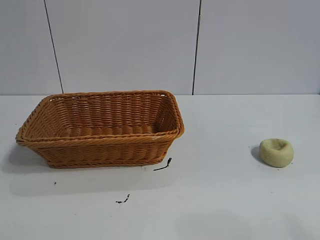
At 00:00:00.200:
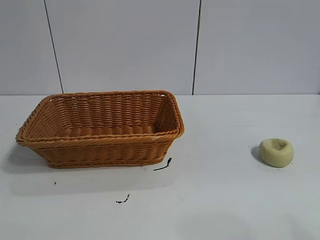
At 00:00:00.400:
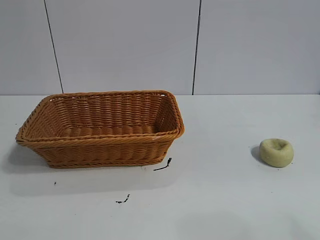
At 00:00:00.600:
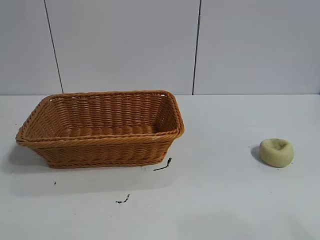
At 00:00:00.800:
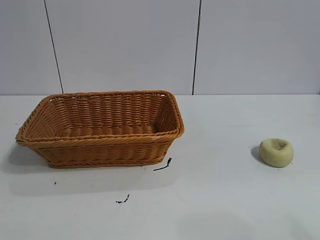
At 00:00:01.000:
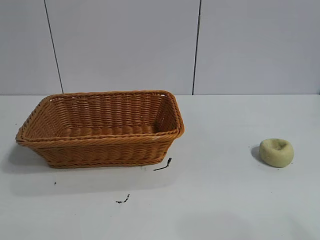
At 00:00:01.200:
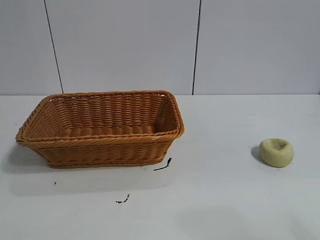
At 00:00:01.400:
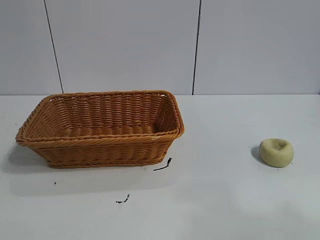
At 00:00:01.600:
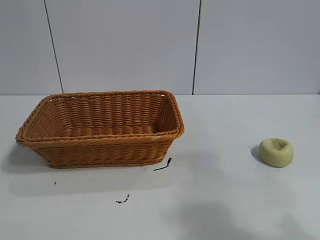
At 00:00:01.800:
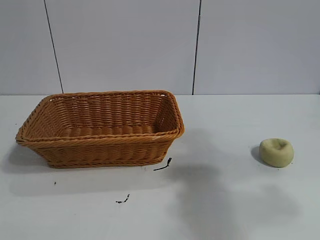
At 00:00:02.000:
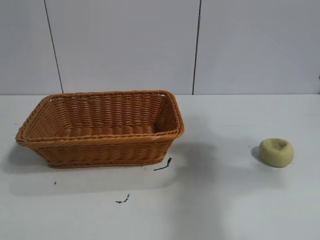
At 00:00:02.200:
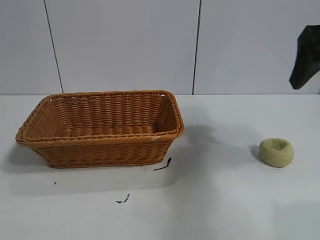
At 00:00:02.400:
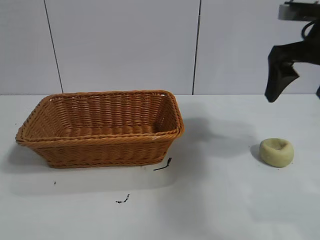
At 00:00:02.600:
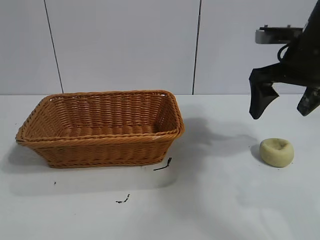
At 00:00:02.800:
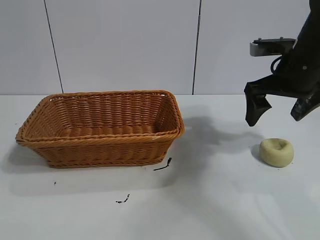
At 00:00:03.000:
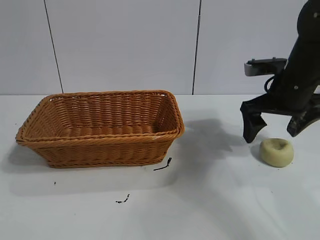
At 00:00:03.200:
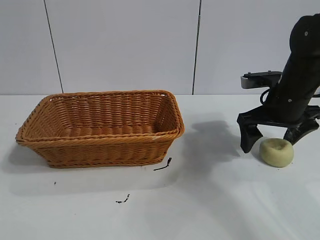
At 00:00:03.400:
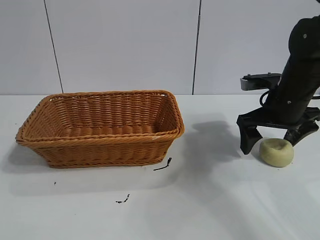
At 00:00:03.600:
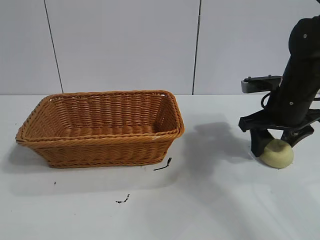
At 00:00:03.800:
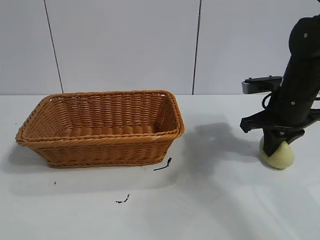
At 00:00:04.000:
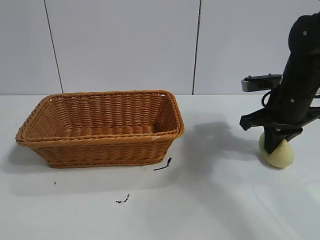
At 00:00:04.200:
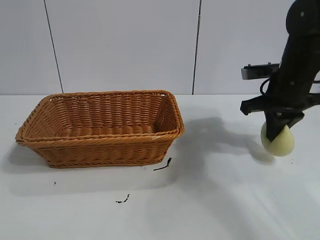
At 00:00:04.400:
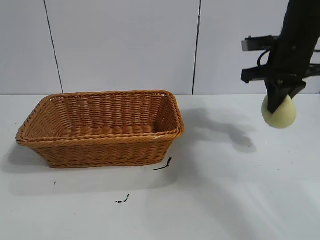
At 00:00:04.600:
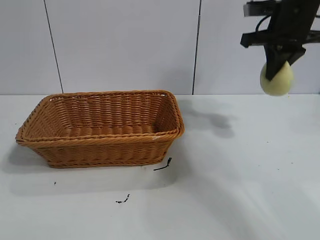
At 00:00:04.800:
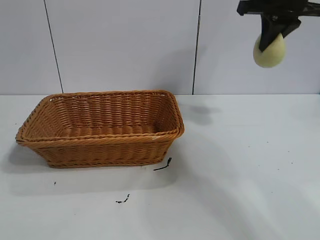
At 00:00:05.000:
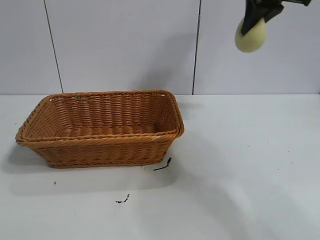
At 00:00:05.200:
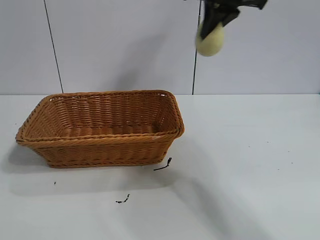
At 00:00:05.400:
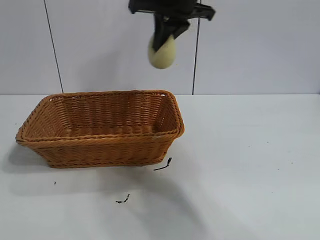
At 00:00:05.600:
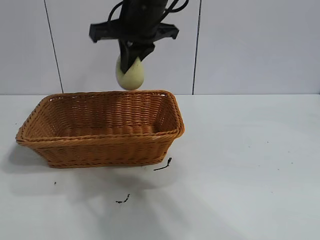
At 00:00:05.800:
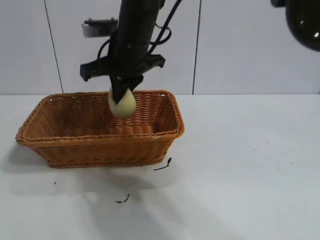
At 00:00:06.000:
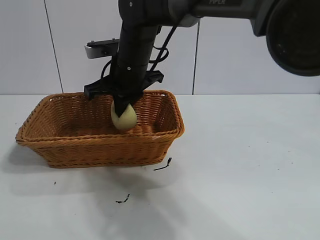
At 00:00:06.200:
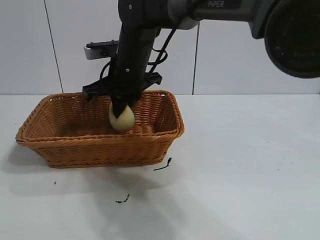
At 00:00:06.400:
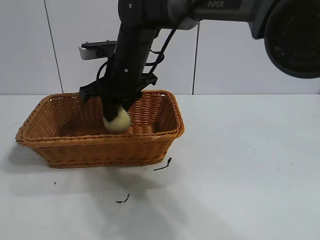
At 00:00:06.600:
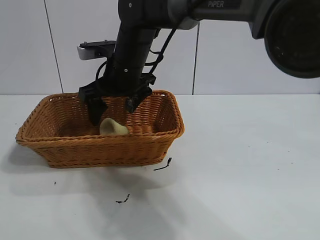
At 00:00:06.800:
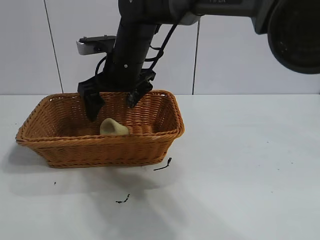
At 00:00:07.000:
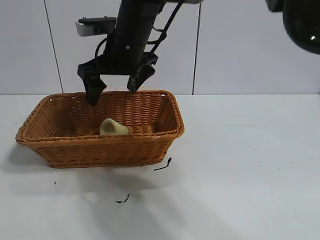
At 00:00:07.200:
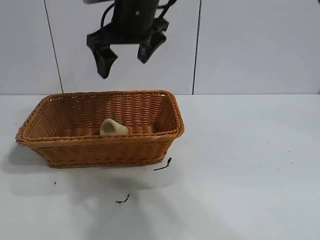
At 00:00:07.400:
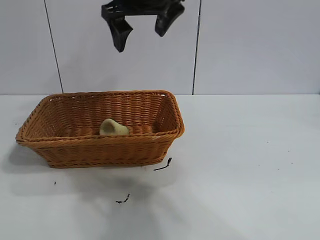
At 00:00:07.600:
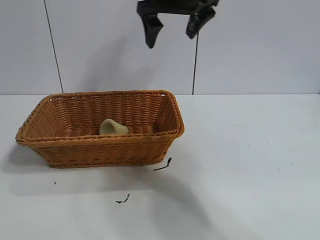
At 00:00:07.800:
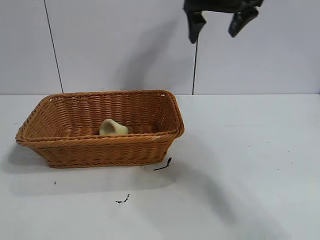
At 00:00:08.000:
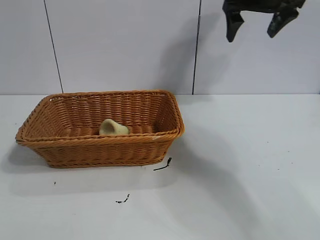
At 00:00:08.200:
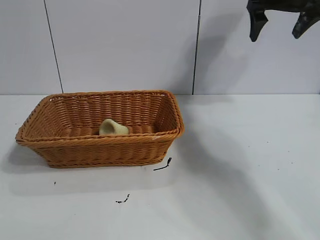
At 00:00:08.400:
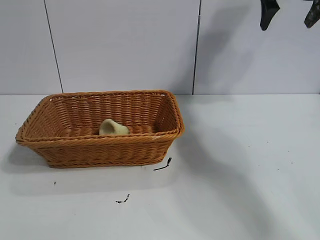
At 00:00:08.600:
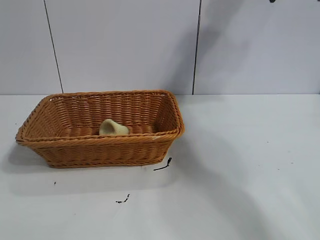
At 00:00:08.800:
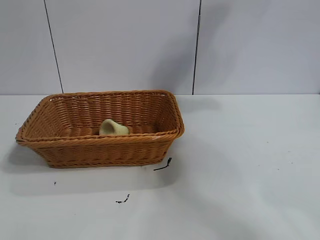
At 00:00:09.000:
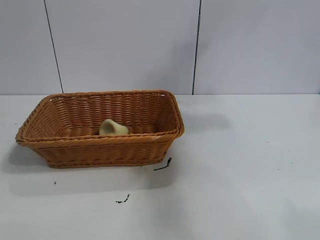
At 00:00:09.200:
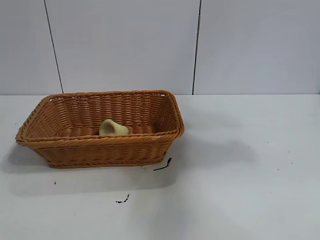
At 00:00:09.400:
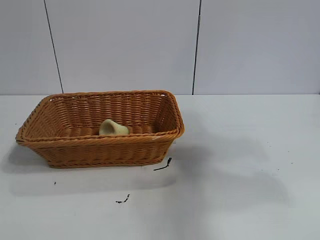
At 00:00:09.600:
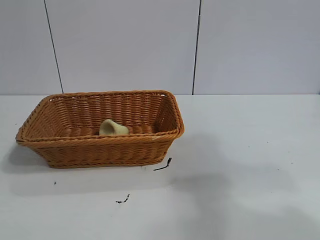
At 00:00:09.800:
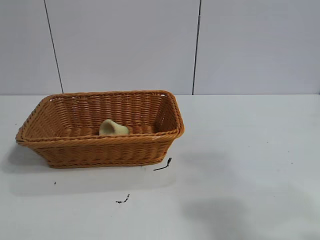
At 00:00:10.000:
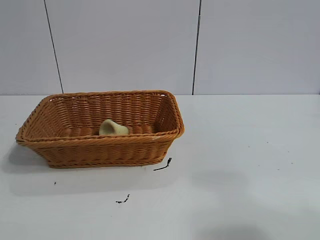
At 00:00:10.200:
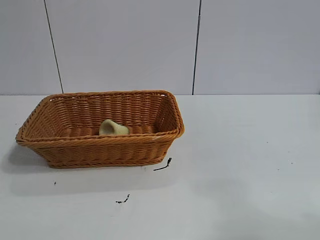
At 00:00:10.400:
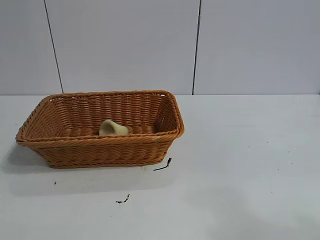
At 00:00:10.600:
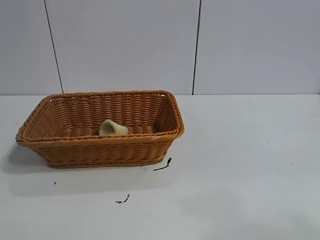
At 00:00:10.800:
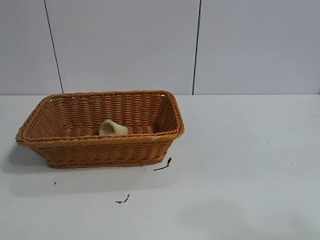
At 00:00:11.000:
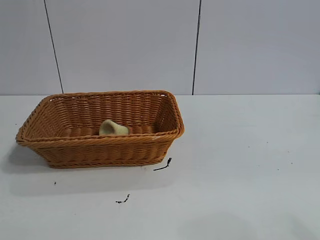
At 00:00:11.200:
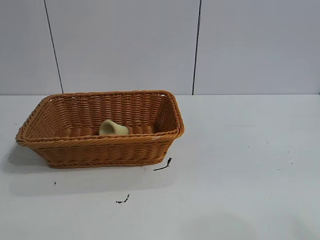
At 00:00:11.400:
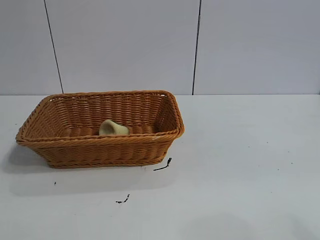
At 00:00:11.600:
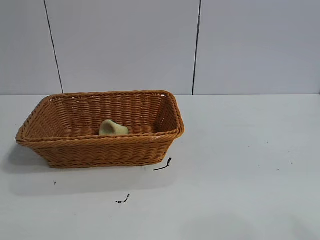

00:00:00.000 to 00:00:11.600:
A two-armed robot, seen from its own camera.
Task of the whole recording: pick up the egg yolk pastry and put it into the basket.
Step, 00:00:01.200 to 00:00:03.600: Grasp egg yolk pastry with right gripper.
Step, 00:00:04.000 to 00:00:06.400: Place the egg yolk pastry in the basket with right gripper.

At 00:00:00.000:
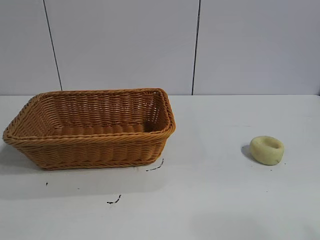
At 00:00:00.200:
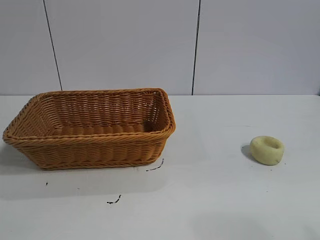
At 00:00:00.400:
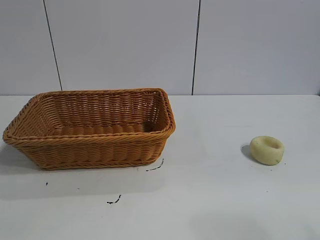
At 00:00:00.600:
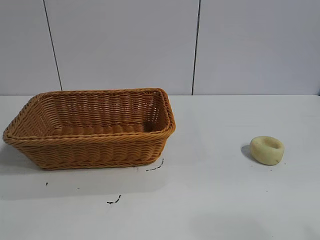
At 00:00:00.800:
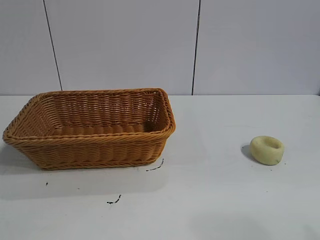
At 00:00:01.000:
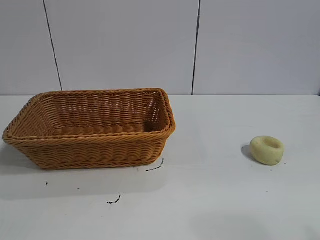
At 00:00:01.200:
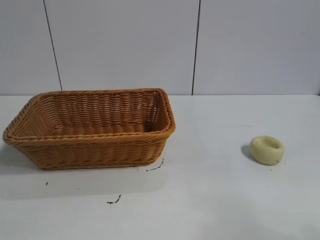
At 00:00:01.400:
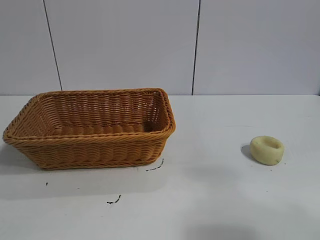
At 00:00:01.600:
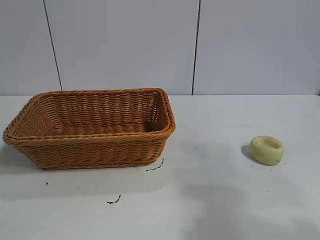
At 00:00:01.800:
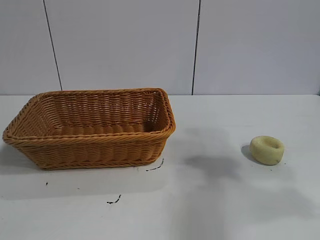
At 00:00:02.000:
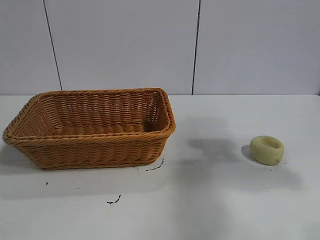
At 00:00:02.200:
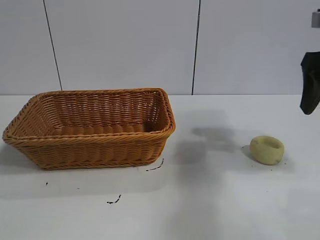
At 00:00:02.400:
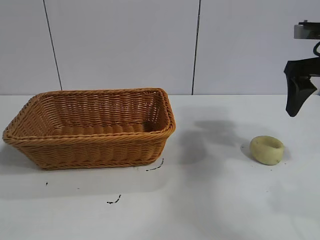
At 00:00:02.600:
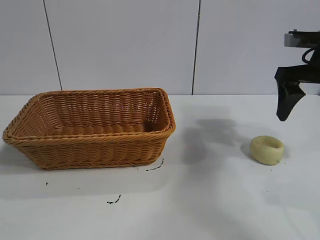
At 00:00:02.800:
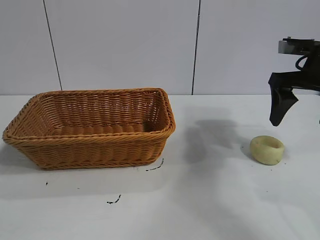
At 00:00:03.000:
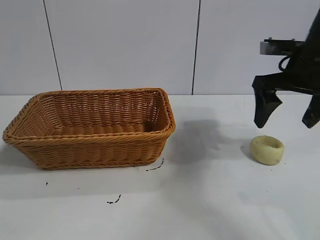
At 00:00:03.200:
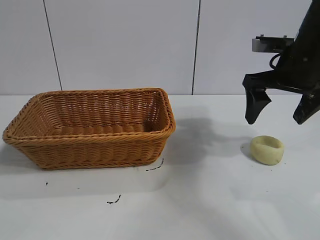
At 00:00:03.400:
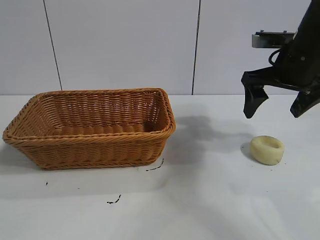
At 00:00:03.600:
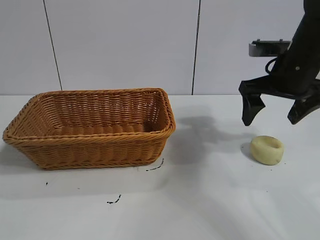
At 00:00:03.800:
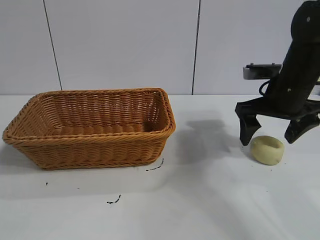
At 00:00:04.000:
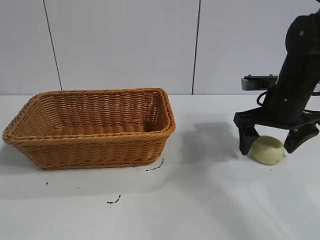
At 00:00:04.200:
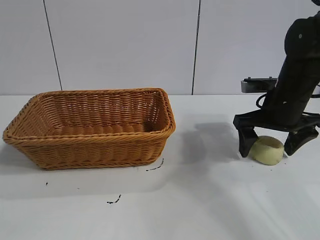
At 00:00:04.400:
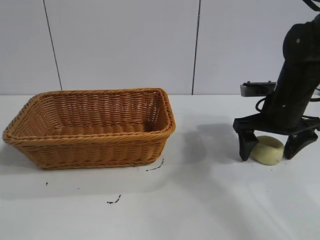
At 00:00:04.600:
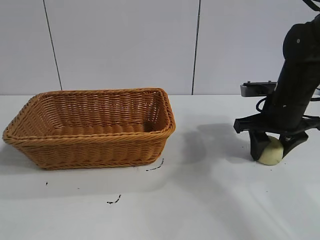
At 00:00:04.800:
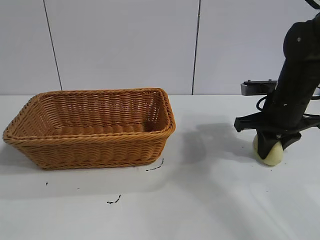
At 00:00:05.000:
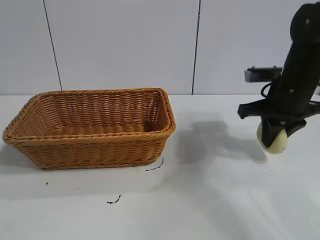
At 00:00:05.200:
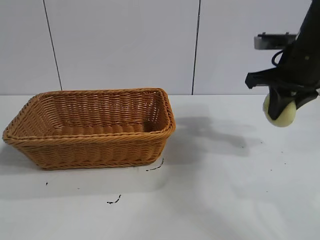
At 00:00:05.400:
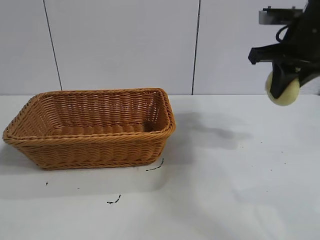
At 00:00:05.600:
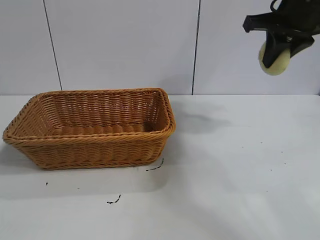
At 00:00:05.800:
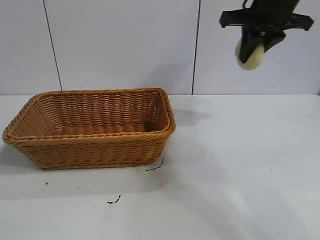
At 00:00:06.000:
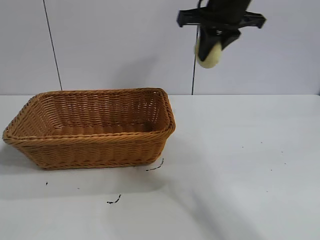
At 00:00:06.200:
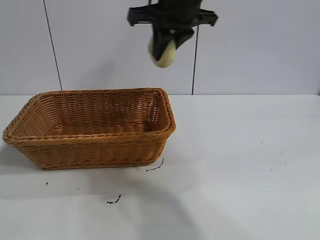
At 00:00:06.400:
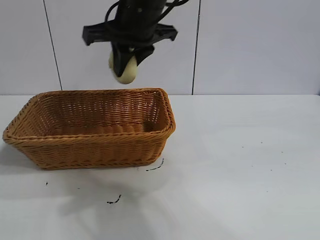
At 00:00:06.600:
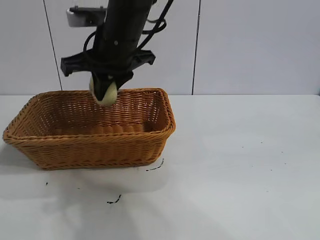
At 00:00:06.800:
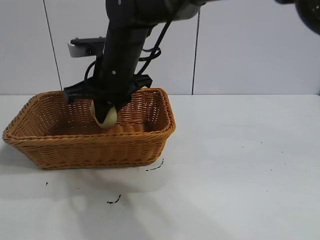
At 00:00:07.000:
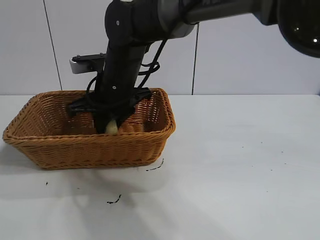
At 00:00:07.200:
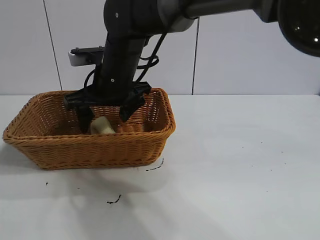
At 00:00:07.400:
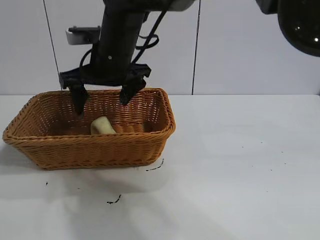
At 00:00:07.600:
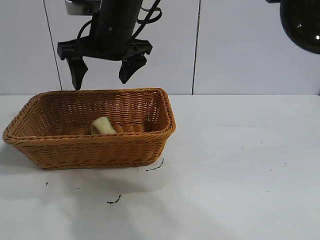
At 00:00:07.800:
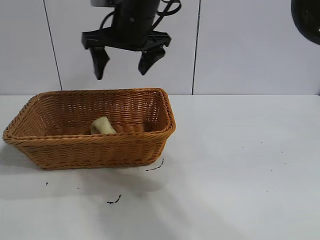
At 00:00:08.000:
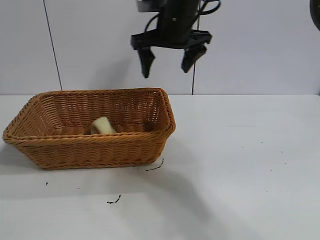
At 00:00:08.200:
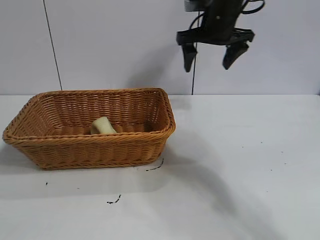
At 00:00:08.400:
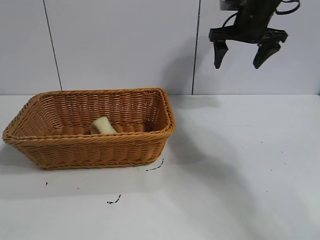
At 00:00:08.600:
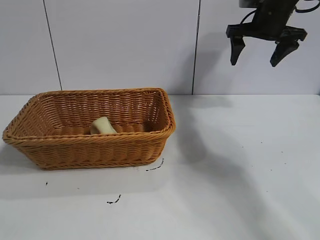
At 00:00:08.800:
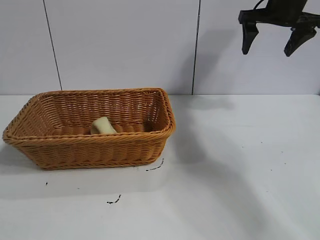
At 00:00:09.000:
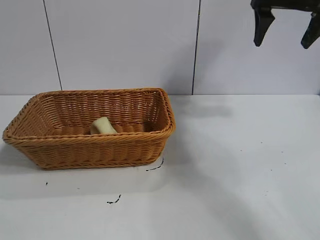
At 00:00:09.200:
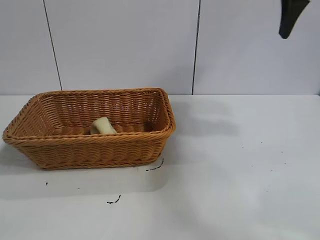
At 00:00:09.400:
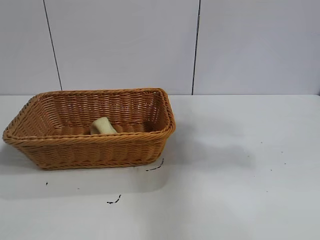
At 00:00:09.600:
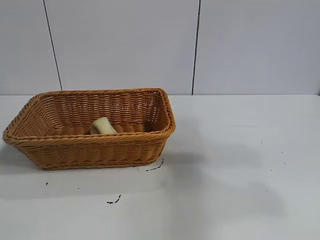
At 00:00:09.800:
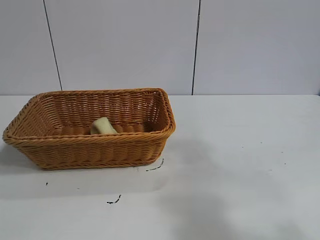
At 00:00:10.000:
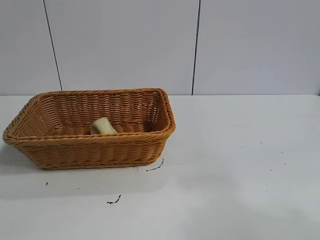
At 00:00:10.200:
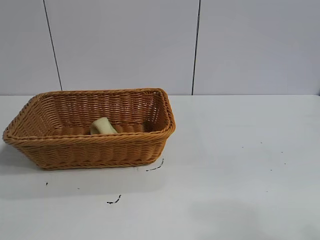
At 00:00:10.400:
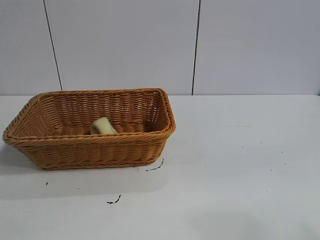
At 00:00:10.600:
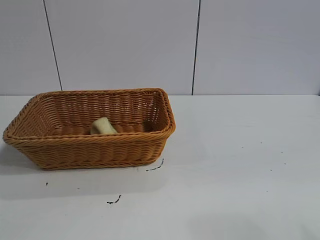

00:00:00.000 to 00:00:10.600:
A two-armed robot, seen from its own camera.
Task of the whole recording: pick up the egg yolk pastry and put it into the basket.
Step, 00:00:01.000 to 00:00:04.600: Grasp egg yolk pastry with right gripper.
Step, 00:00:05.000 to 00:00:07.200: Place the egg yolk pastry in the basket with right gripper.
